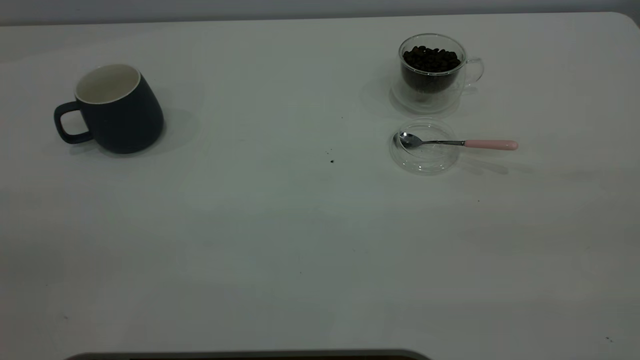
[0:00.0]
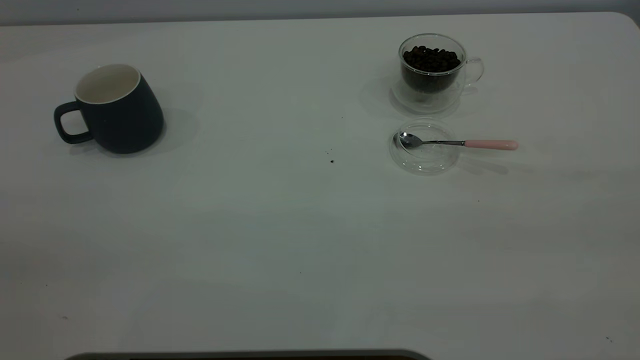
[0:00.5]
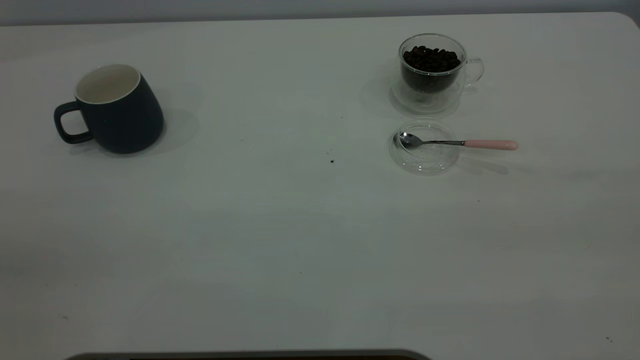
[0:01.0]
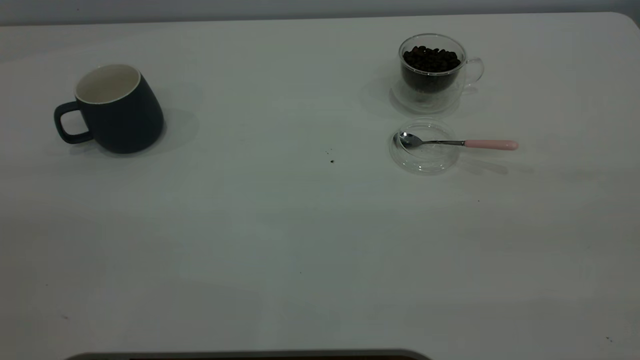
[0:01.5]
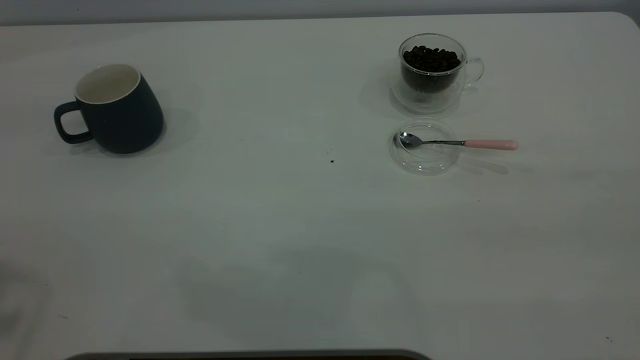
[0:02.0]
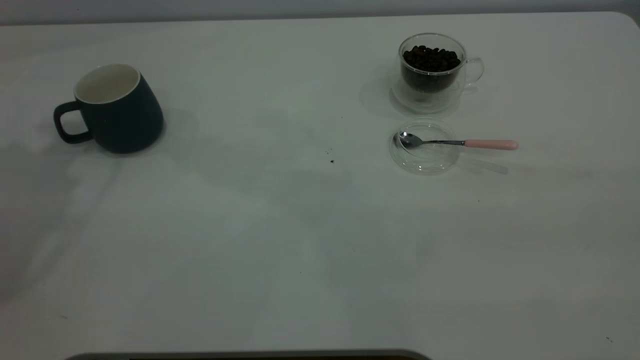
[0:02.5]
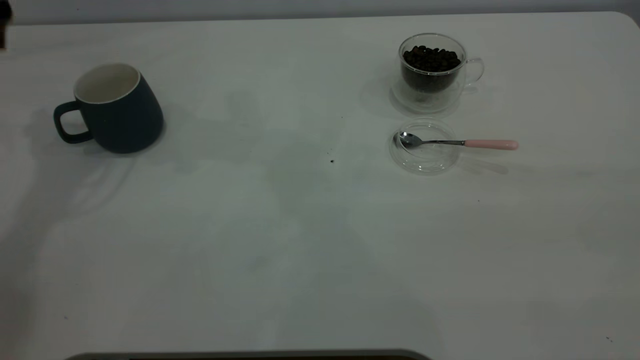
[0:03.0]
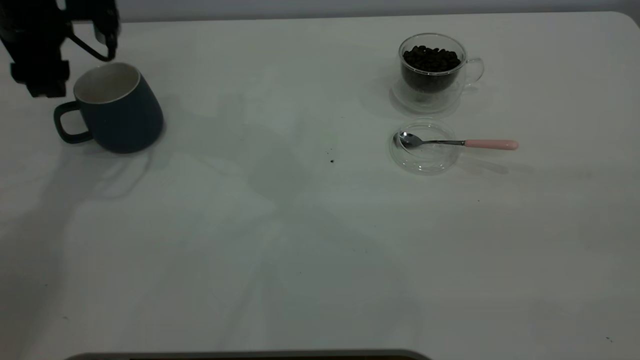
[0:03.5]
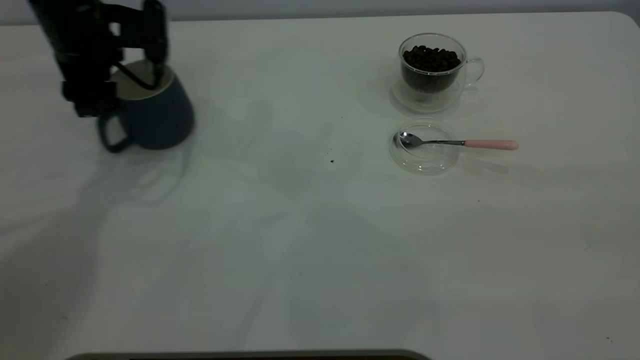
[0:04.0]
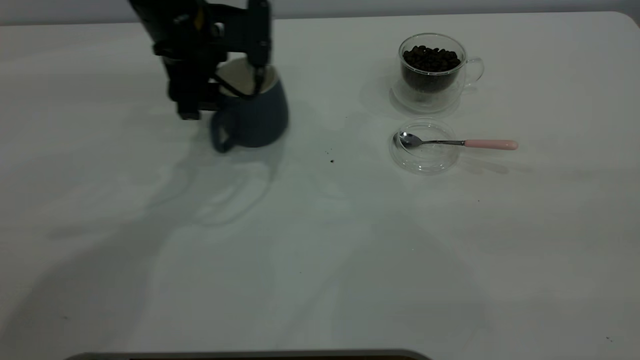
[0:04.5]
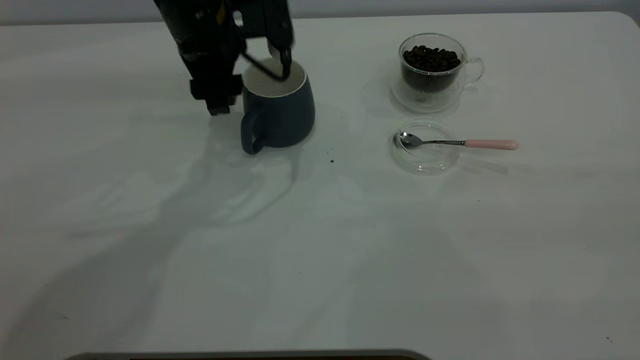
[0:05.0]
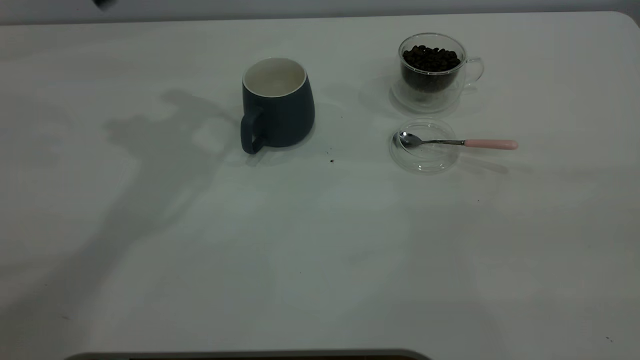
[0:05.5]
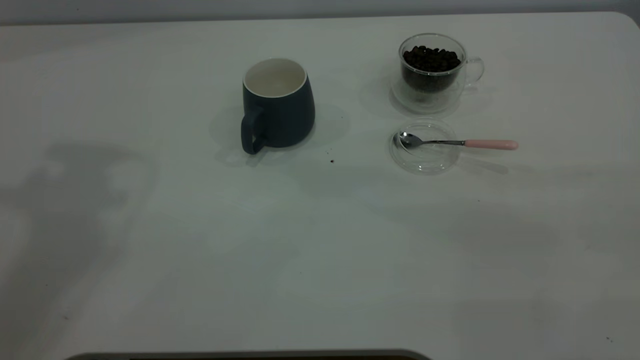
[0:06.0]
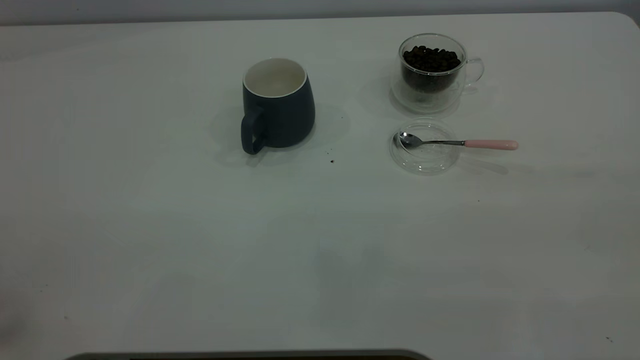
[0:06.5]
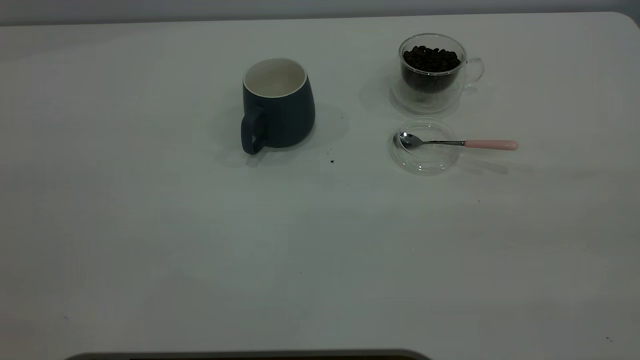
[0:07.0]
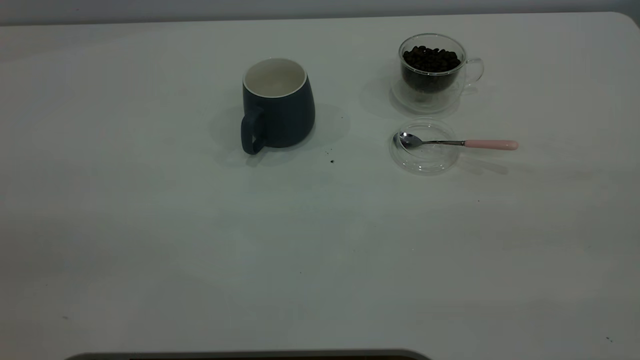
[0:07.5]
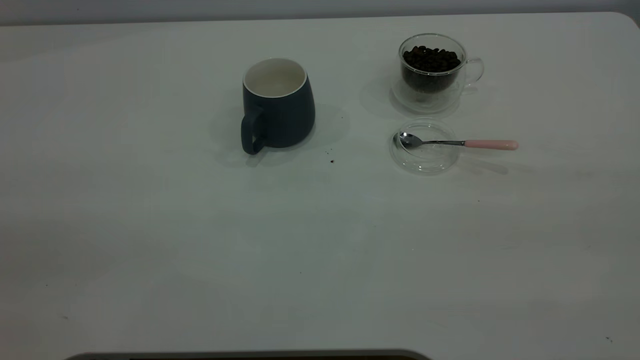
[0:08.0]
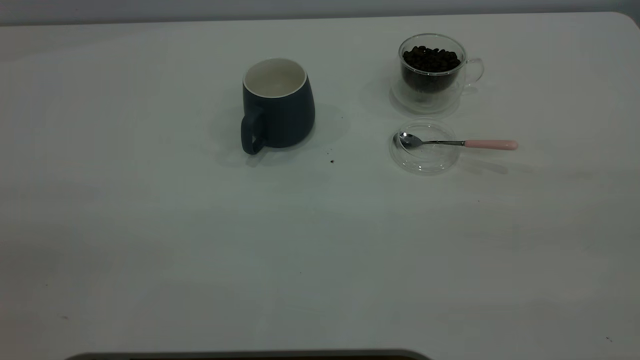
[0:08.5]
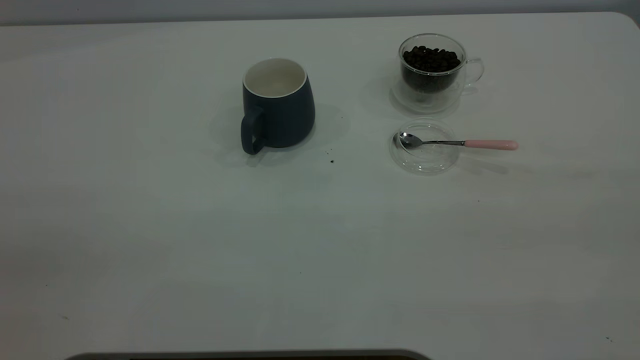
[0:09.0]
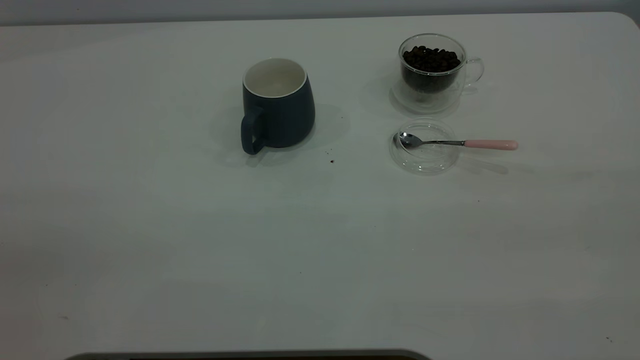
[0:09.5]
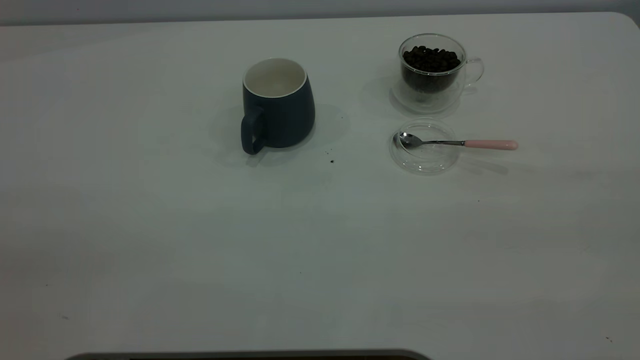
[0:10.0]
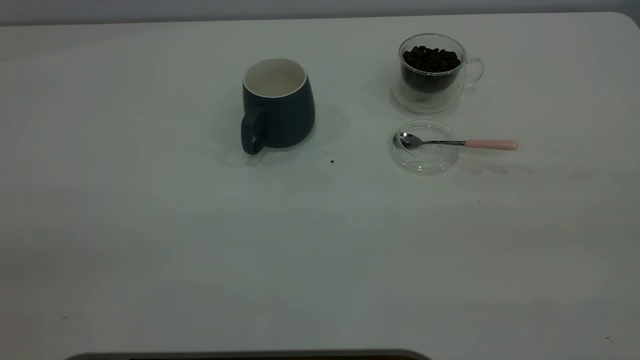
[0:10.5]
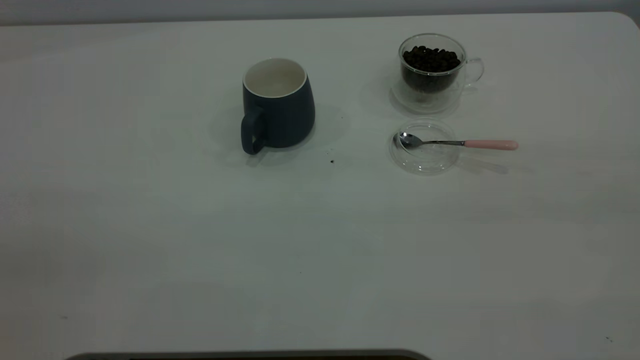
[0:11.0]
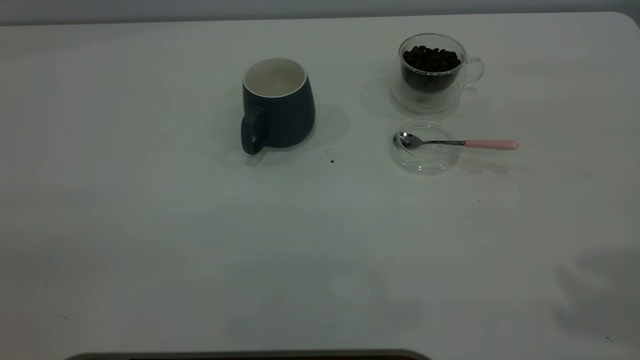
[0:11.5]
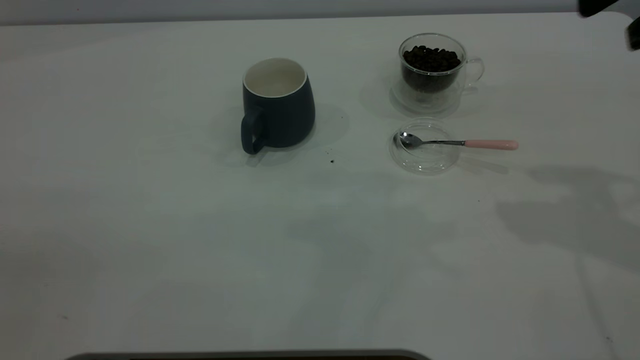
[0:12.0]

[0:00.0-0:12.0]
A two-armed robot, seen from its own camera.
Task of the whole recording: the left gripper place the grey cup in the center of the table, the right gripper take the pink spoon from the cup lid and scoop out the coffee beans from the coffee cup and put them into the grey cup, the right gripper put the spoon back into the cup lid.
Step, 0:00.0 to 0:05.0: Move the cup to the center of view.
0:02.0 to 0:04.0: The left gripper goes some 35 cm downward and forward.
0:04.0 to 0:06.0: The left gripper heads upward and backward, covering approximately 40 cm.

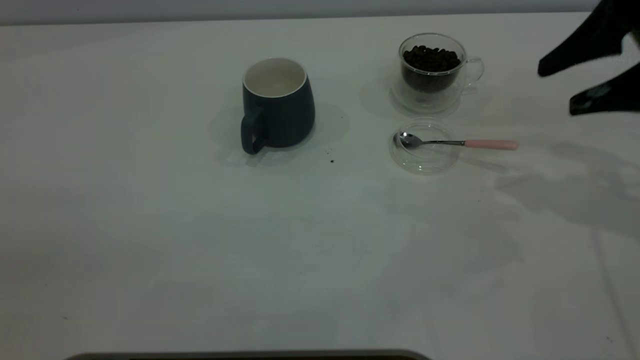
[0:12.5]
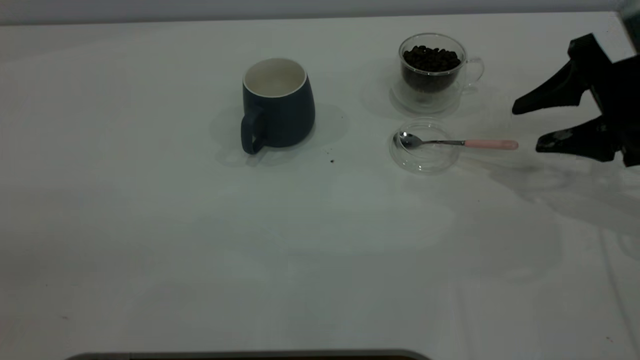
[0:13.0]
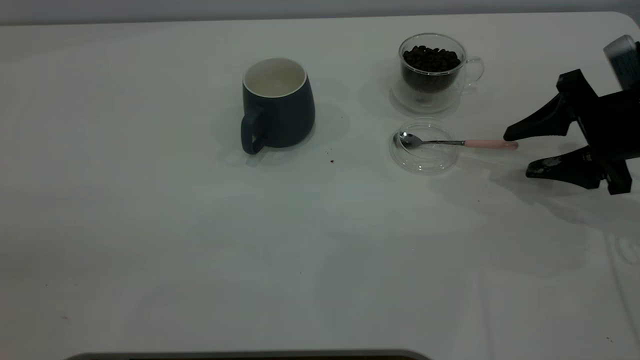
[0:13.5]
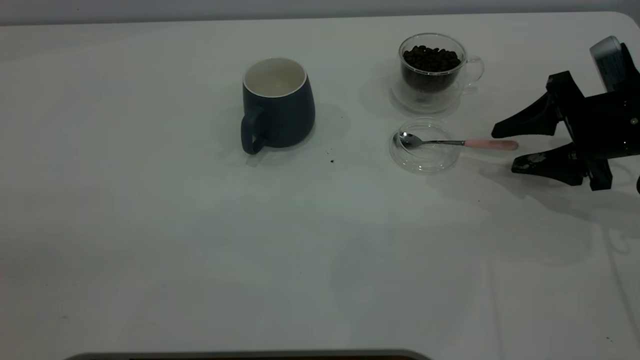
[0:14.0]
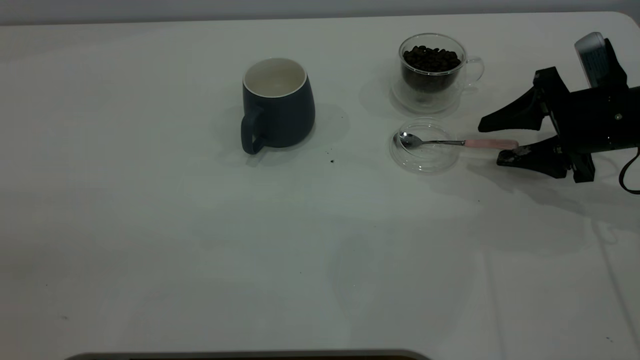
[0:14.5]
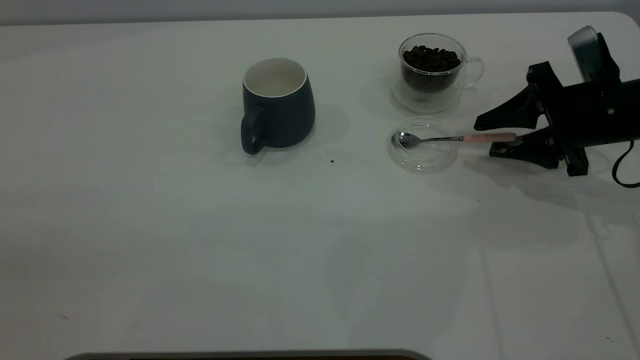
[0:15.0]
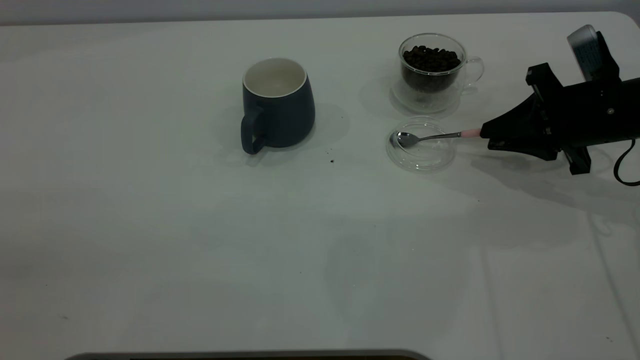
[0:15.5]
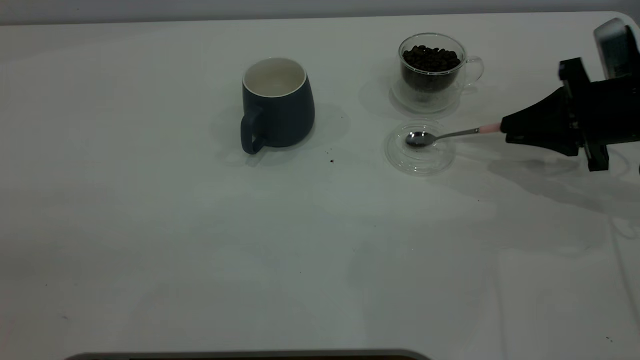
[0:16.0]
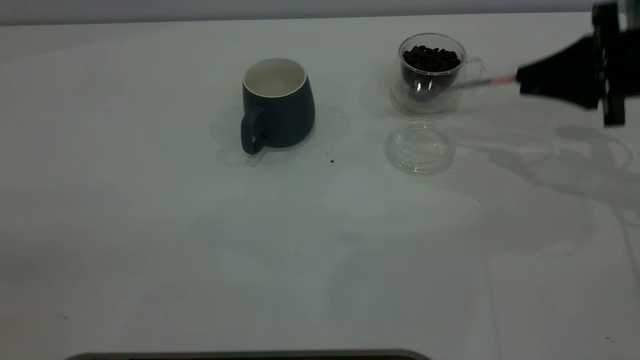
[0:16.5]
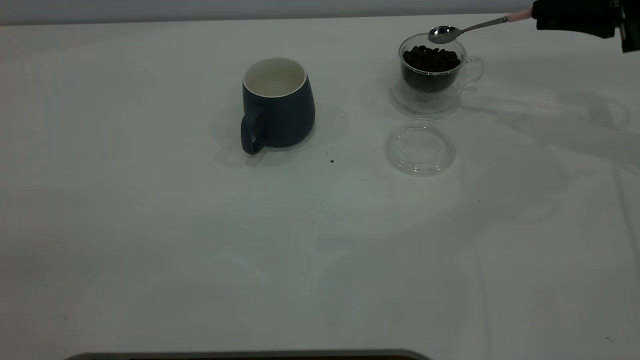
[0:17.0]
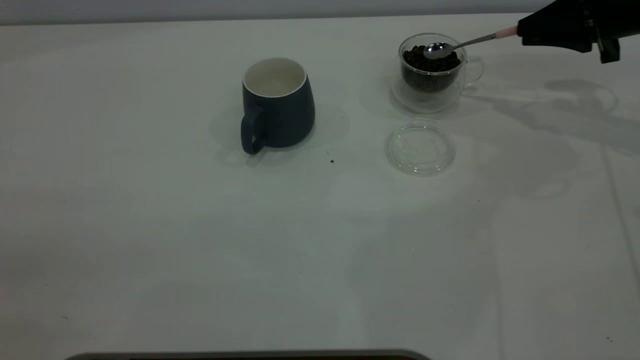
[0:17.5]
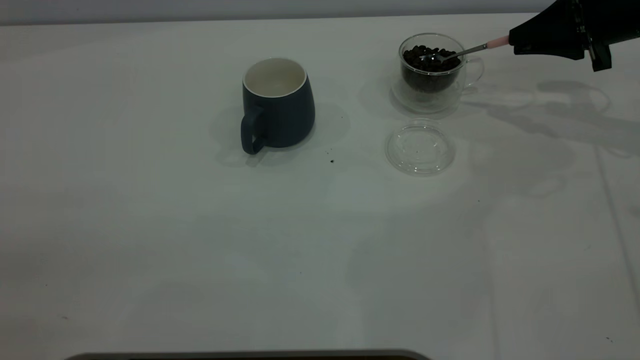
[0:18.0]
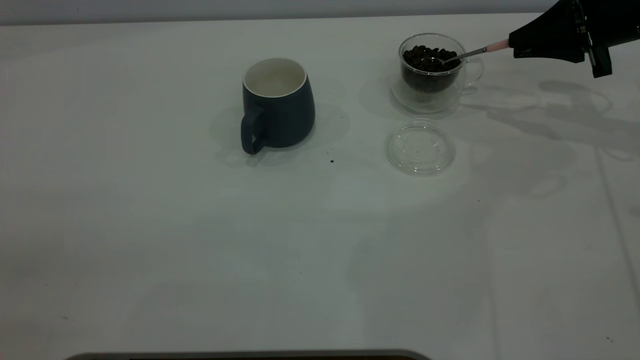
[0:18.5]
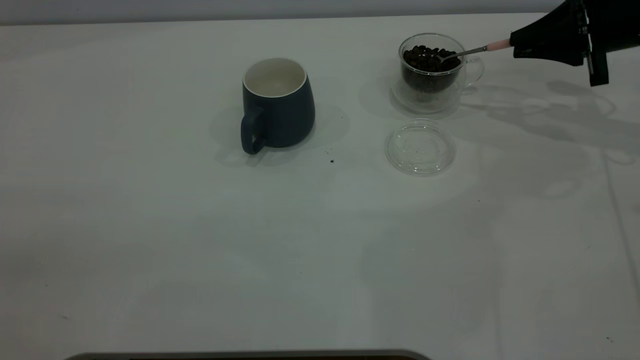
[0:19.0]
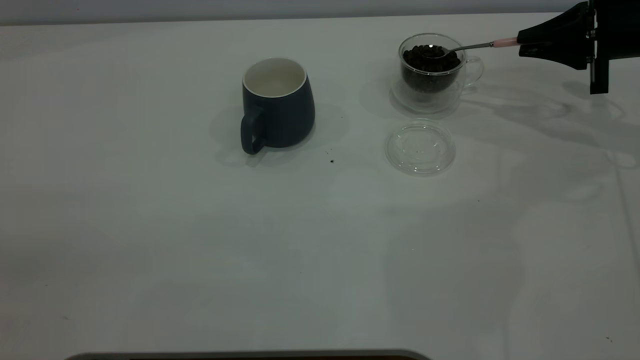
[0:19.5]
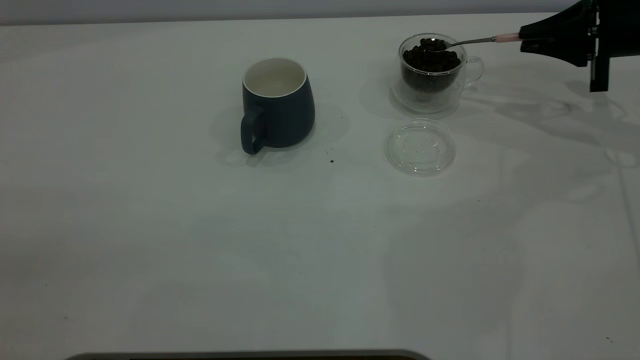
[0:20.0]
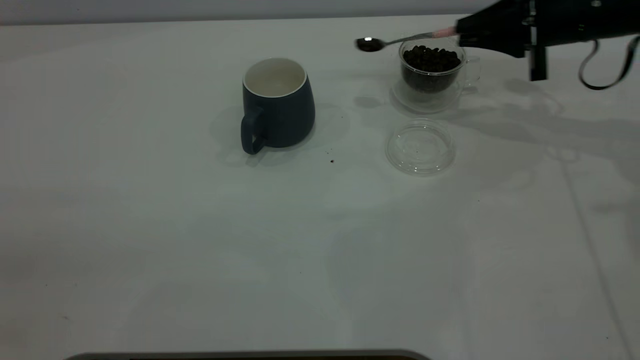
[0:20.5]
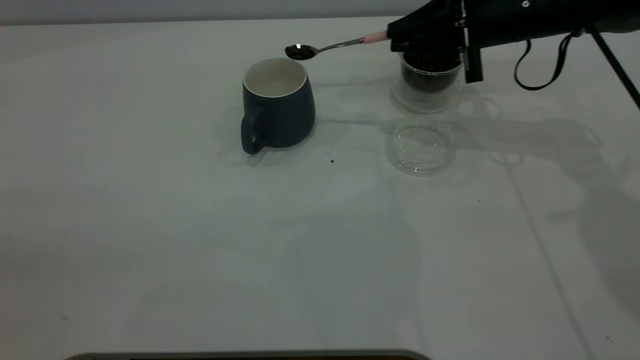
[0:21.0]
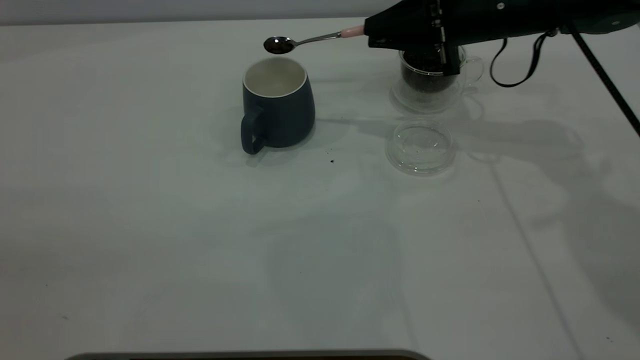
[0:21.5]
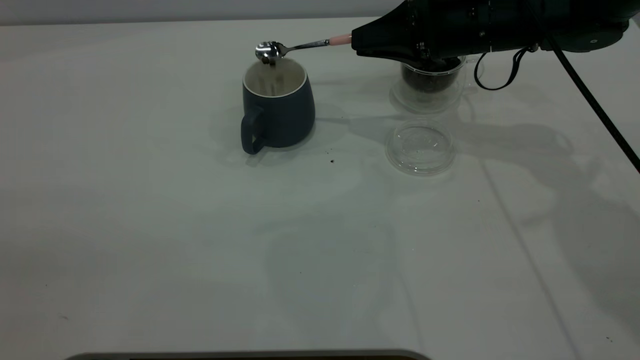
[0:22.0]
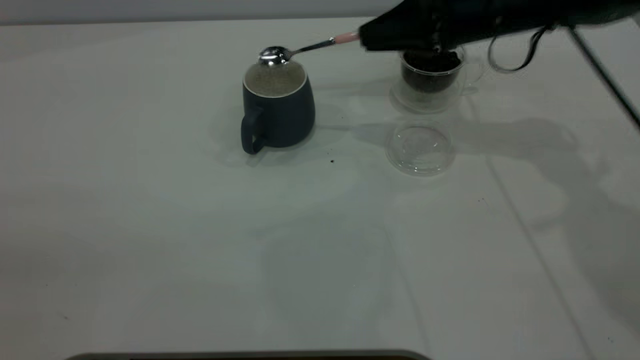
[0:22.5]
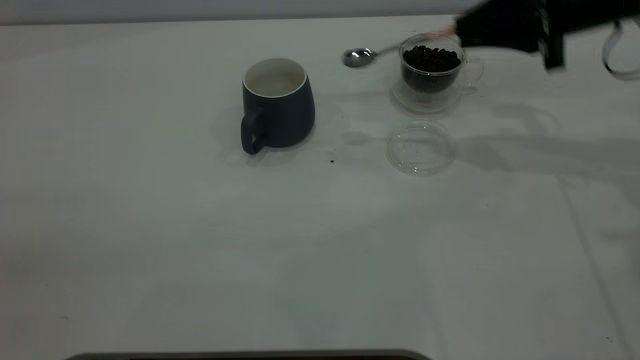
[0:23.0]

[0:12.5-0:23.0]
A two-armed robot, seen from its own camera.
Task of the whole recording: the left gripper place the grey cup in the center of the table, the right gripper take the pink spoon from the cup lid and scoop out the coffee beans from the coffee cup and put them into the grey cup, the right gripper put the spoon back into the cup lid.
Step, 0:12.5 to 0:16.0: Pick up the spoon.
Step, 0:16.5 to 0:22.0: Scoop a spoonful of beans into the cup.
0:12.5 to 0:14.5: The right gripper moves downward, approximately 10 cm.
0:14.5 to 0:16.5: The right gripper is displaced upward by approximately 5 cm, and closes up.
0:16.5 to 0:19.0: The right gripper shifts about 10 cm forward.
0:19.0 to 0:21.0: The right gripper is displaced to the left by approximately 15 cm.
0:21.0 to 0:23.0: The right gripper heads to the right, covering approximately 5 cm.
